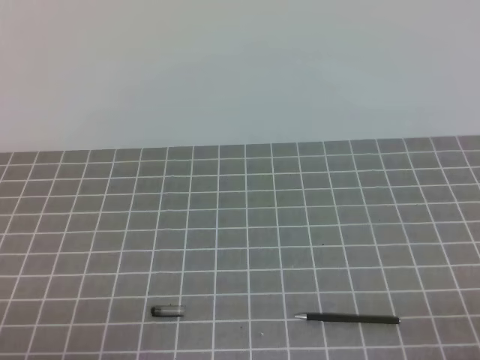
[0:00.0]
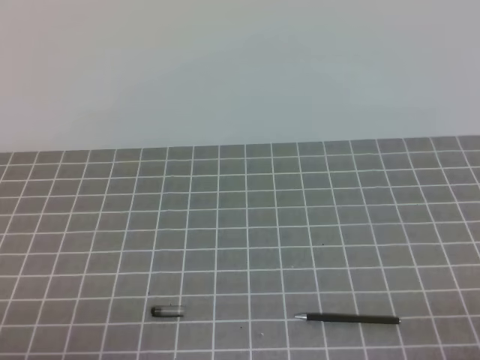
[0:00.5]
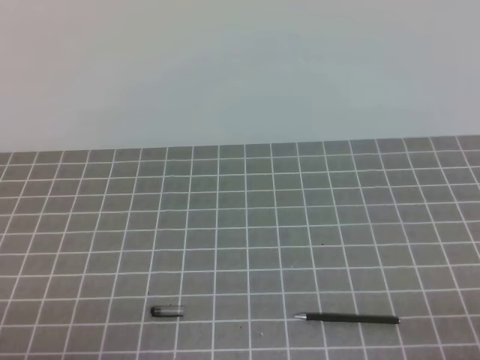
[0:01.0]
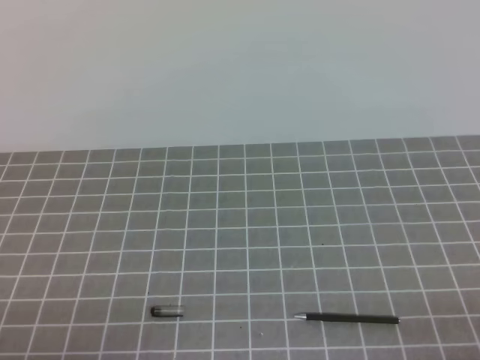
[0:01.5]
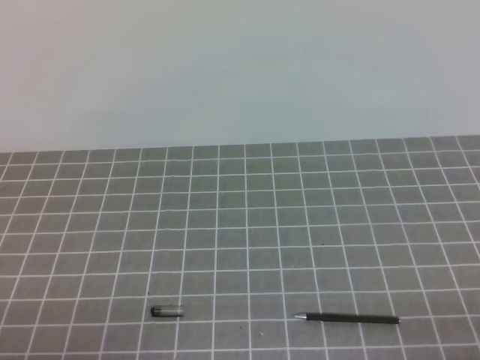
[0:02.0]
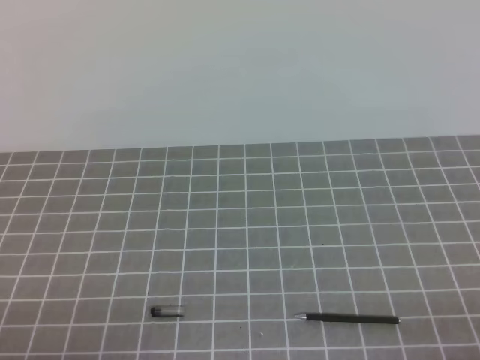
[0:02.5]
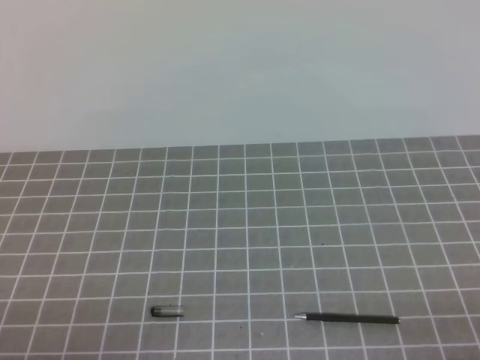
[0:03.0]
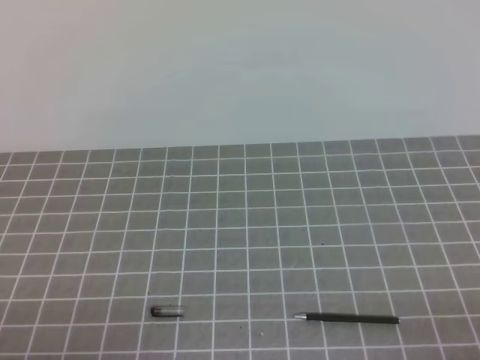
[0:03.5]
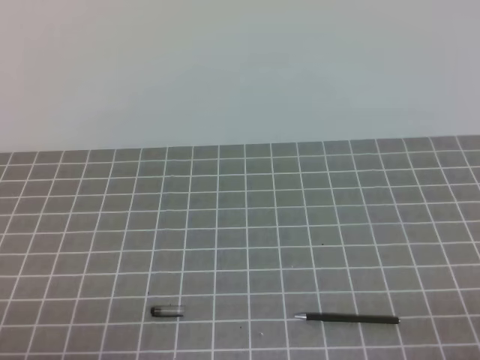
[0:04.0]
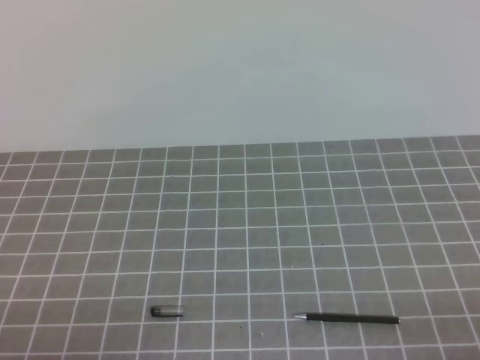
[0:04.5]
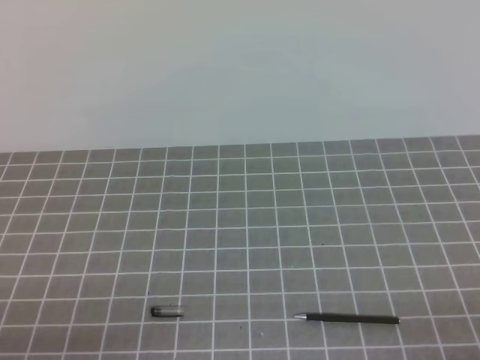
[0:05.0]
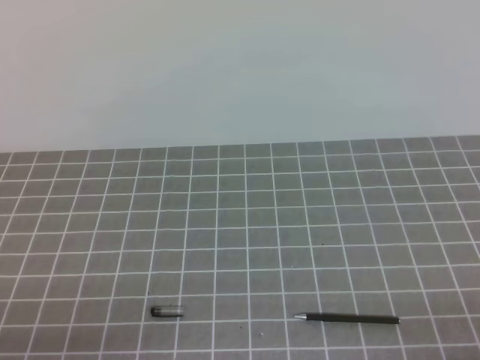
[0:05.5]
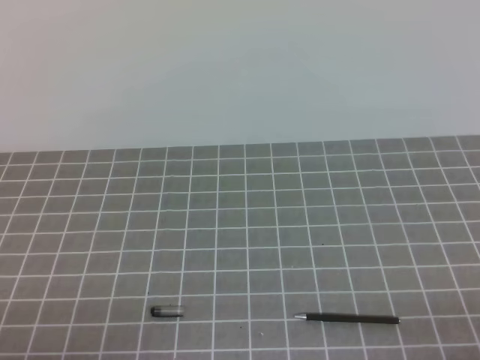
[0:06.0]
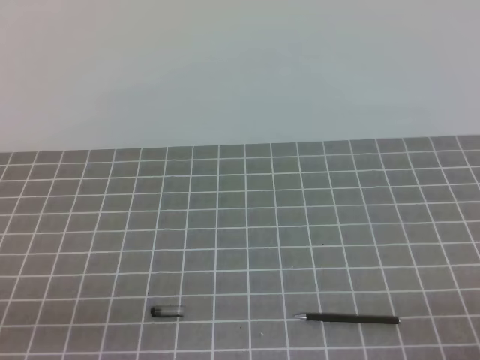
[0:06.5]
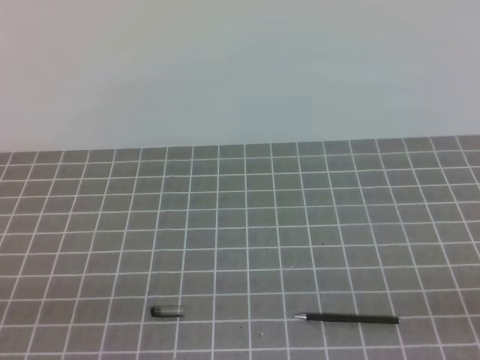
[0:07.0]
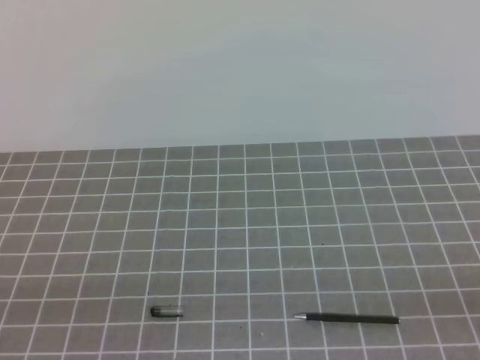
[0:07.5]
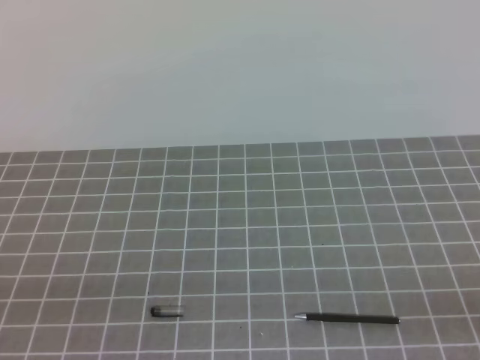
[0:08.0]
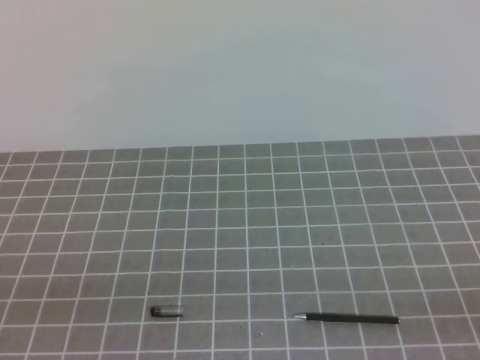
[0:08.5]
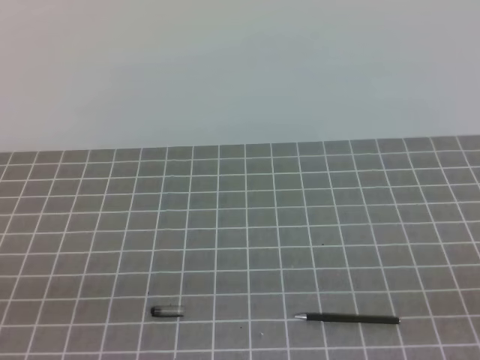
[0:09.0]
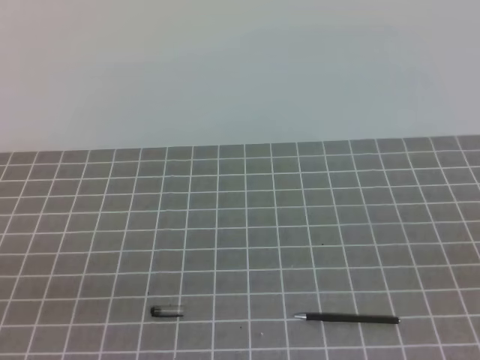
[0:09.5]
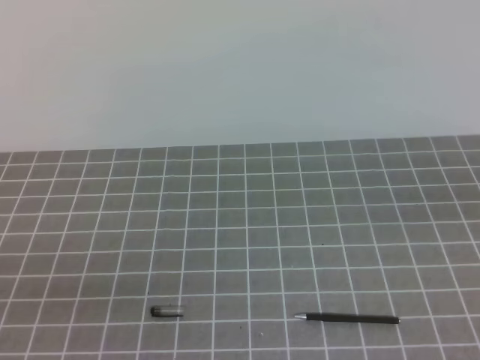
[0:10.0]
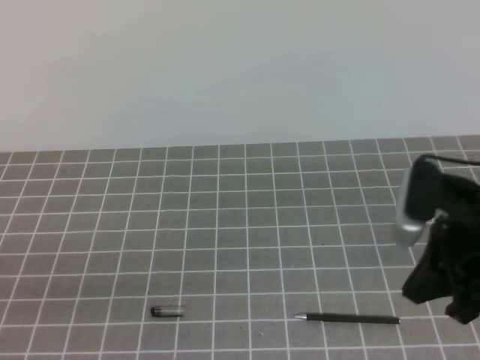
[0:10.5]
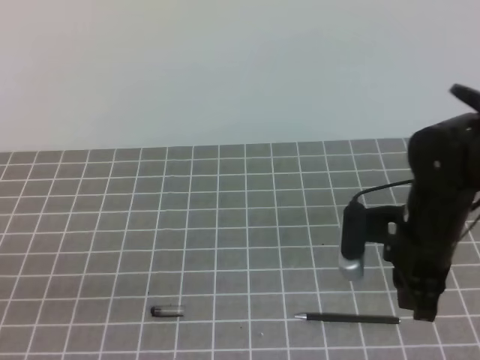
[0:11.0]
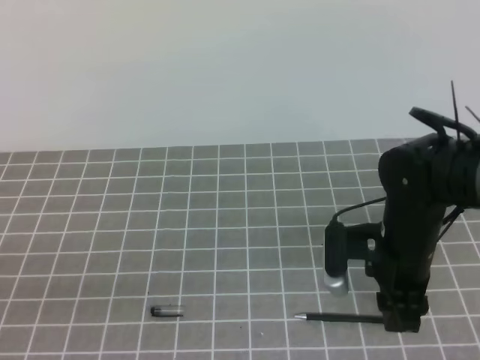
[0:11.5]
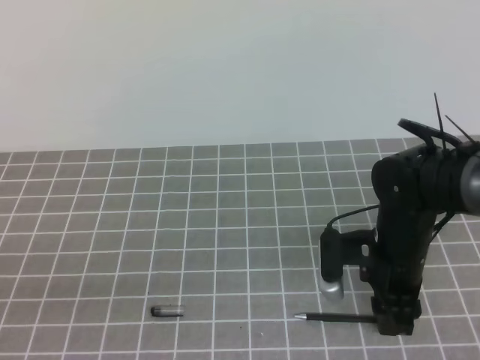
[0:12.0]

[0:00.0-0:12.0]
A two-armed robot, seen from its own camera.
Task of the whole recording: on the grey tablecloth, hold the pen cap in one hand and the pen in the other, then cover the pen cap.
0:00.0 to 0:04.0: Neither gripper changes place.
0:10.0 to 0:12.0: The right gripper heads downward, to the left and forward, covering some 25 cm, and opens.

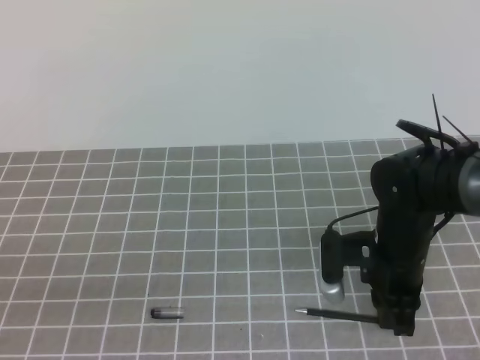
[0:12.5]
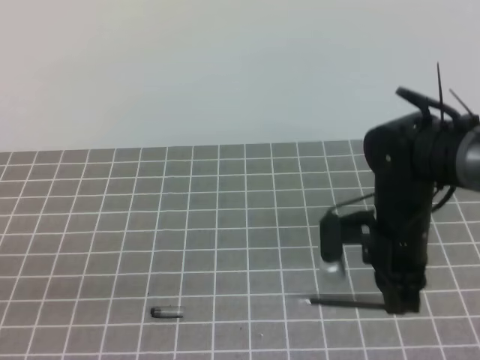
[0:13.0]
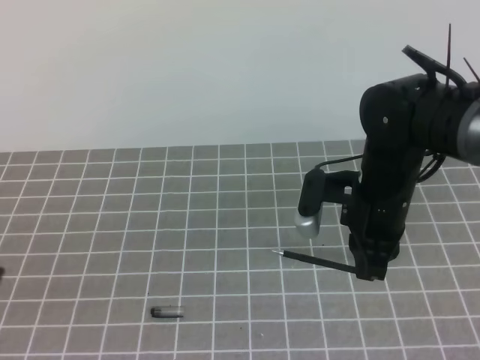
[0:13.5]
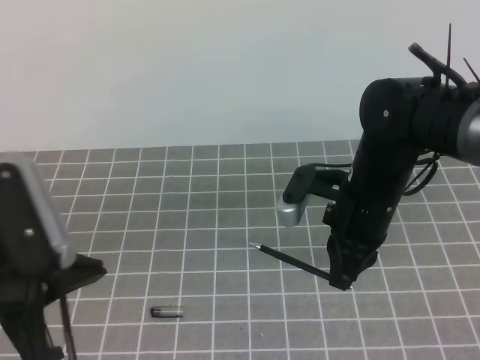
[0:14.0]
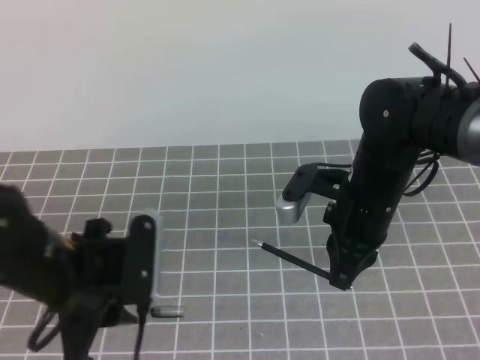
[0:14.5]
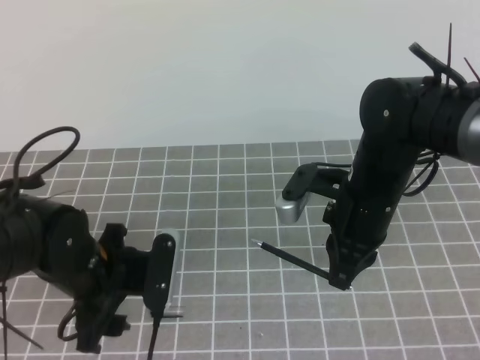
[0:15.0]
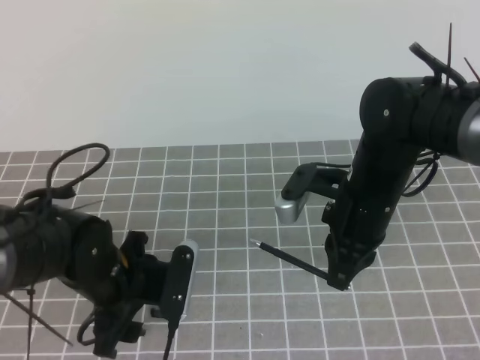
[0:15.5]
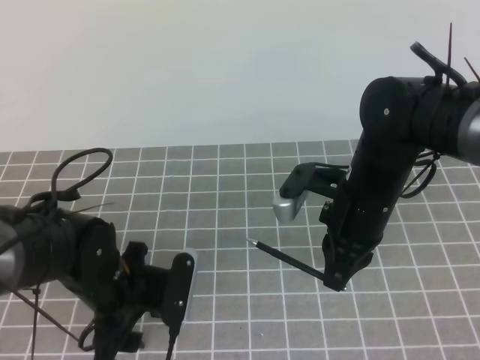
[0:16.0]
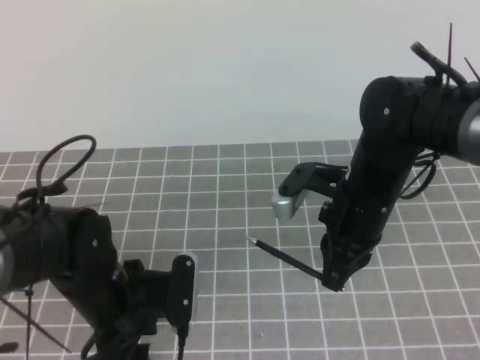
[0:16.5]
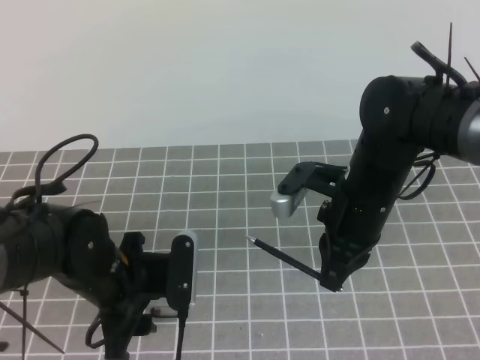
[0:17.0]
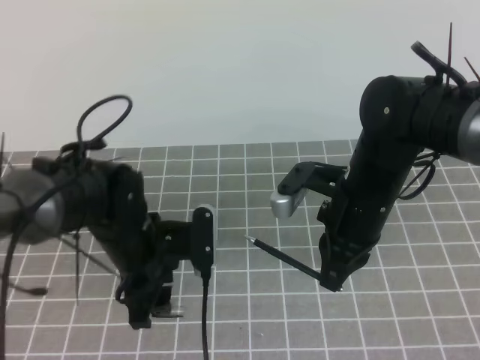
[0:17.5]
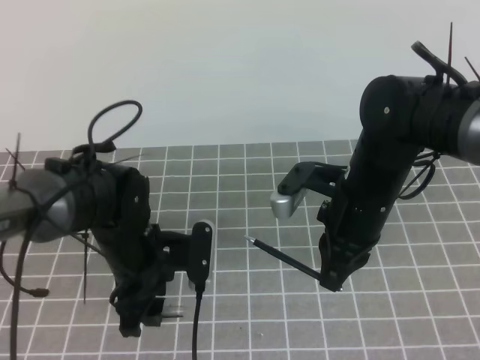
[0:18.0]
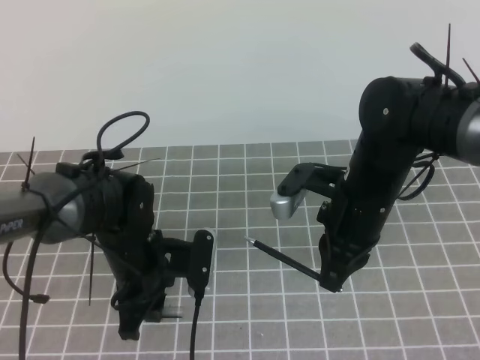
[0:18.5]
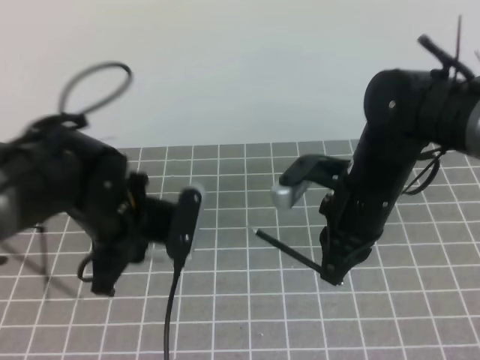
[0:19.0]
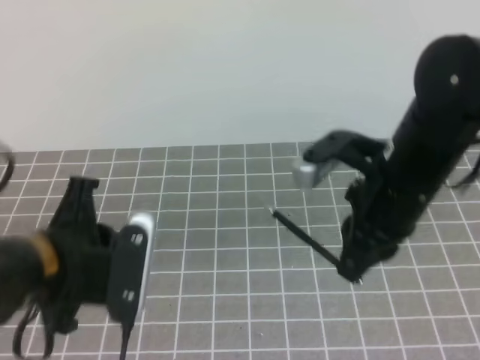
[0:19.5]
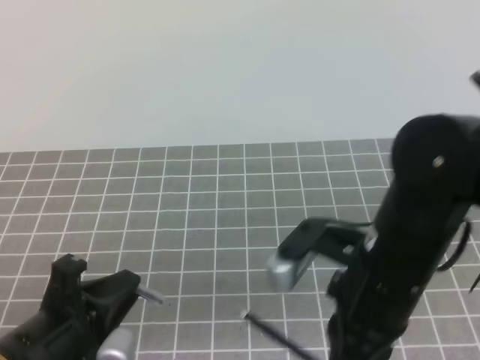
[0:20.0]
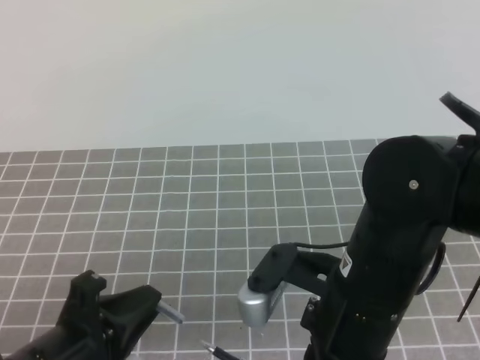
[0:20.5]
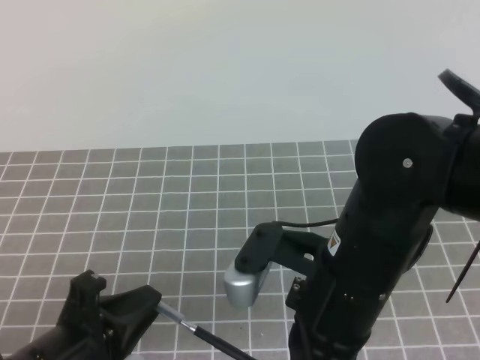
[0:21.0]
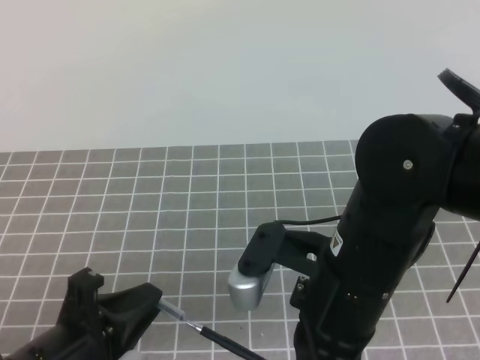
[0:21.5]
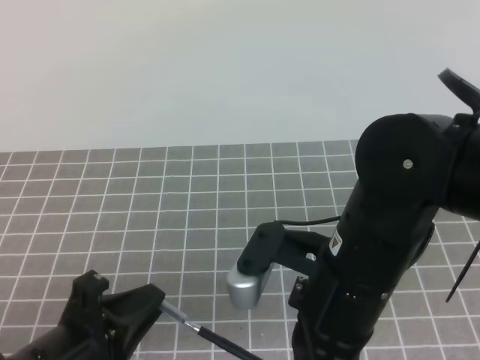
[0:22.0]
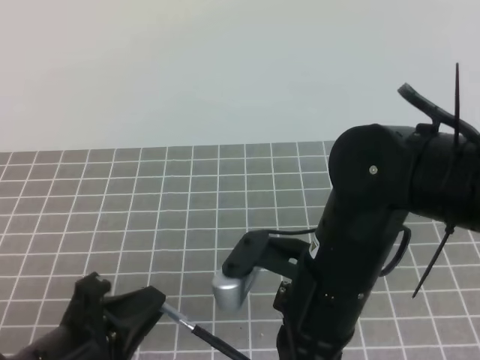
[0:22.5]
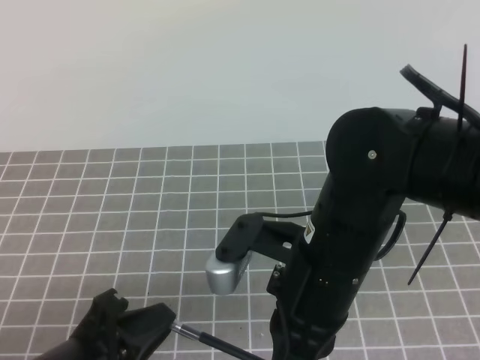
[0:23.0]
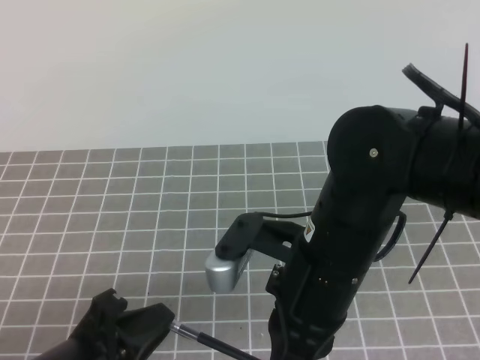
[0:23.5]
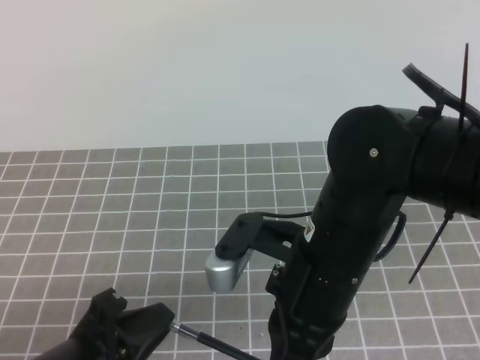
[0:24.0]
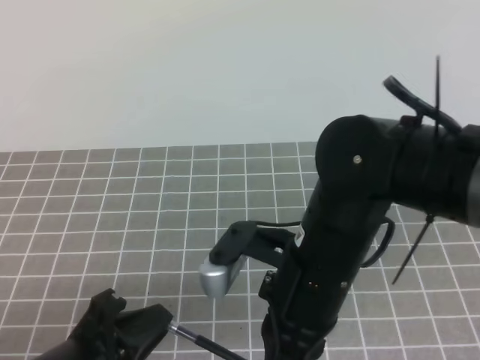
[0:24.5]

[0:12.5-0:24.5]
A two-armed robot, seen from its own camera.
Task of the whole recording: on the grey tablecloth, hold the pen cap in one hand and the pen in the other, then cover the pen cap.
0:12.5 to 0:14.5: The left gripper shifts about 15 cm forward and to the right, and opens its fingers, while the right gripper is displaced upward by about 5 cm.
0:14.5 to 0:16.5: The left gripper is displaced downward by about 5 cm.
0:16.5 to 0:18.5: The left gripper is displaced forward by roughly 5 cm, and closes its fingers.
0:18.5 to 0:20.5: Both grippers move backward, about 15 cm.
0:20.5 to 0:24.5: The grippers move only a little.

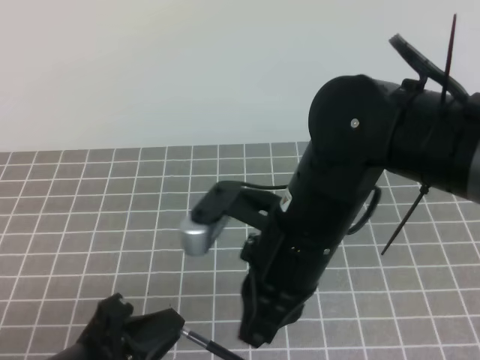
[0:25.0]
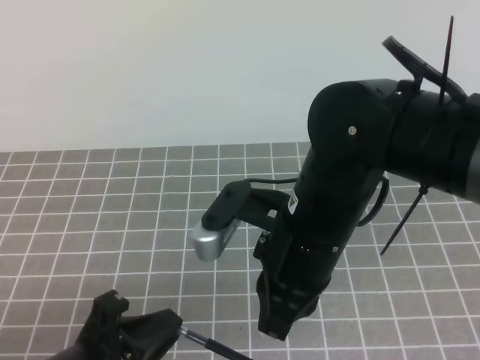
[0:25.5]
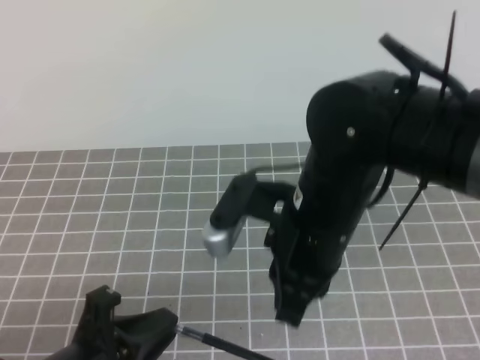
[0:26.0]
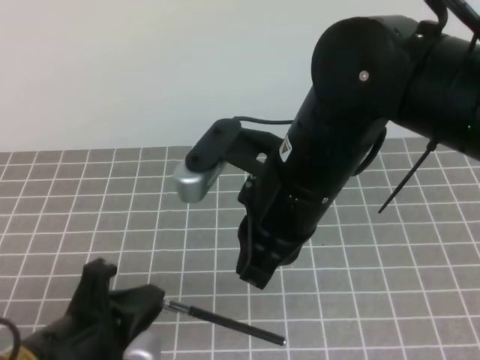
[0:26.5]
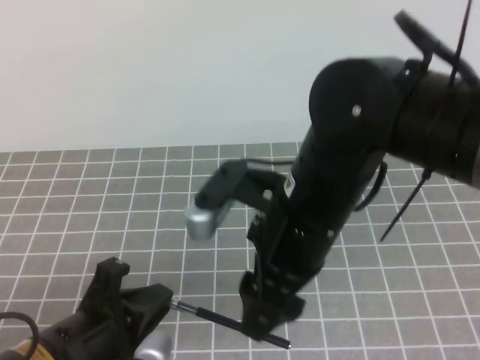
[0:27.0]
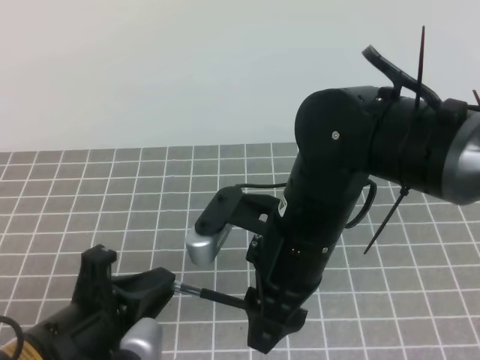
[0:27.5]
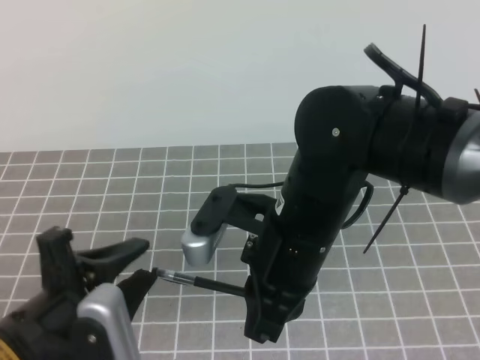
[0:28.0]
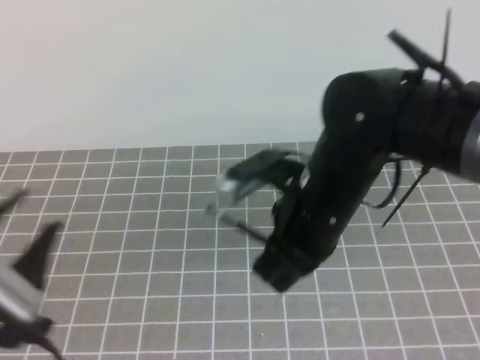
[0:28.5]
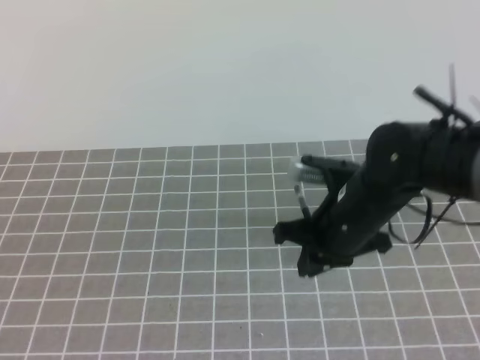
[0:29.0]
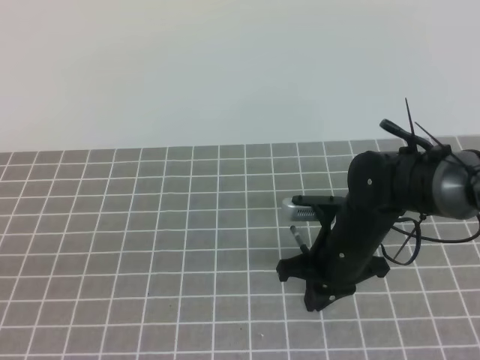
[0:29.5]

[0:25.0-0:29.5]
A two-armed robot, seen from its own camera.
Task of the whole recording: on the grey tablecloth, hold the pen cap in one hand and the pen in the other, then cover the pen cap.
0:25.0 to 0:27.0: The right gripper opens its fingers.
0:27.0 to 0:29.5: The left gripper heads to the left, backward and upward, covering roughly 15 cm, and opens its fingers. Meanwhile the right gripper heads downward and forward, covering approximately 20 cm, and closes its fingers.
